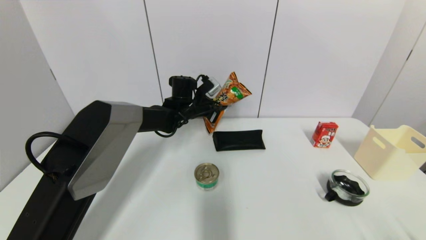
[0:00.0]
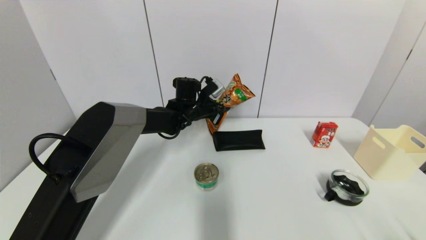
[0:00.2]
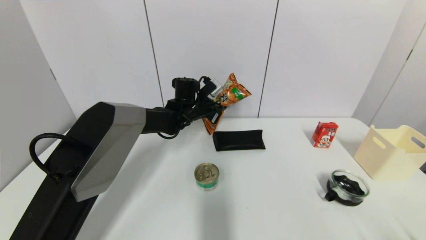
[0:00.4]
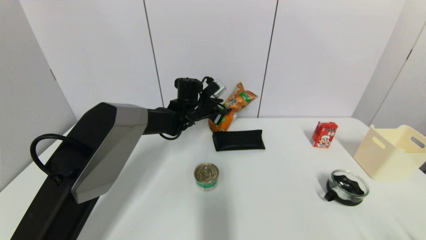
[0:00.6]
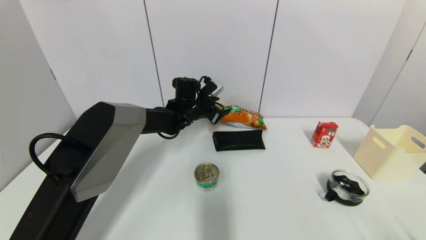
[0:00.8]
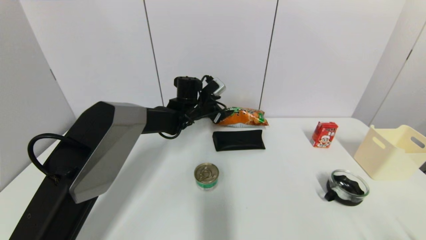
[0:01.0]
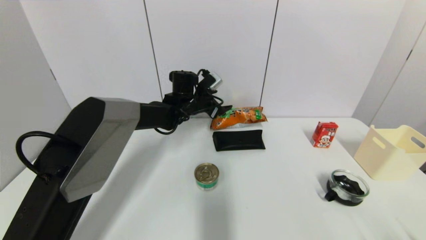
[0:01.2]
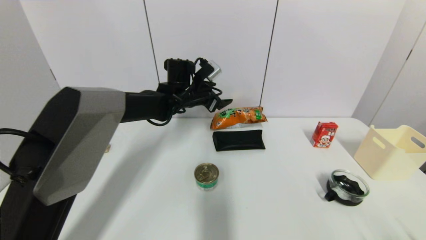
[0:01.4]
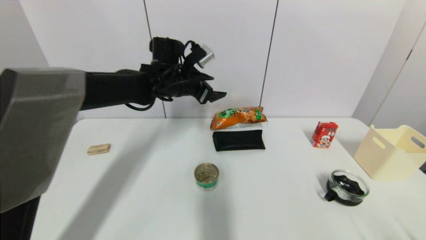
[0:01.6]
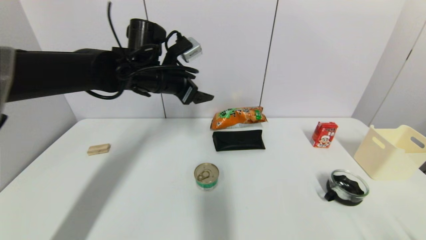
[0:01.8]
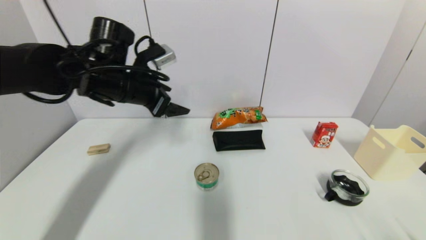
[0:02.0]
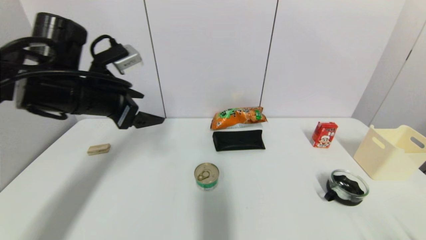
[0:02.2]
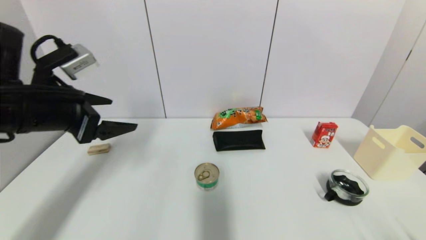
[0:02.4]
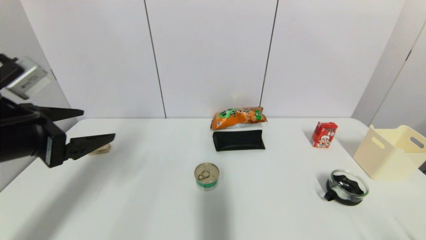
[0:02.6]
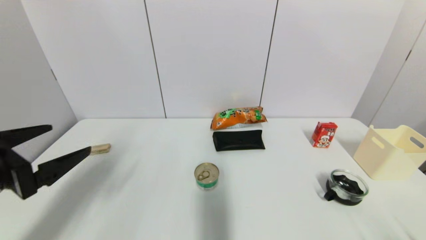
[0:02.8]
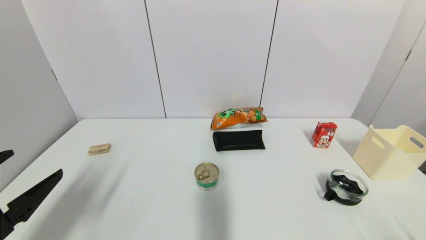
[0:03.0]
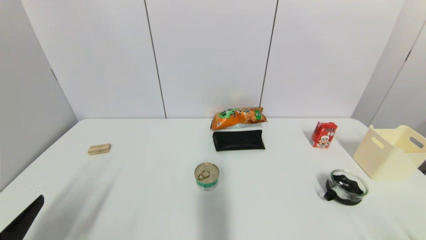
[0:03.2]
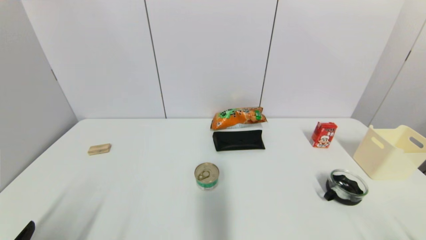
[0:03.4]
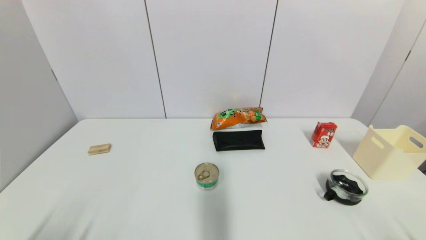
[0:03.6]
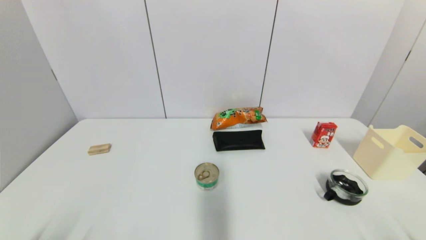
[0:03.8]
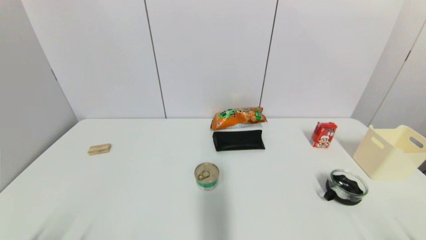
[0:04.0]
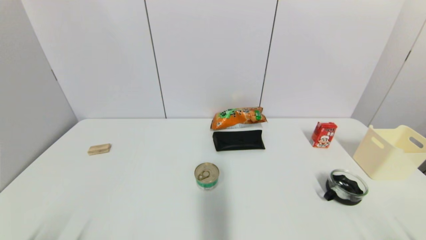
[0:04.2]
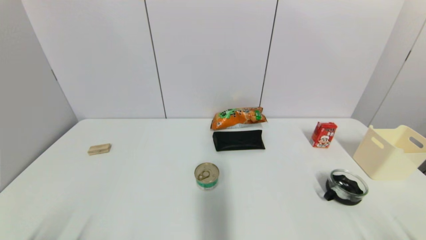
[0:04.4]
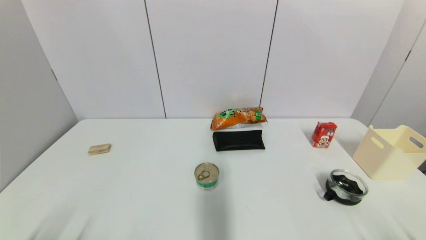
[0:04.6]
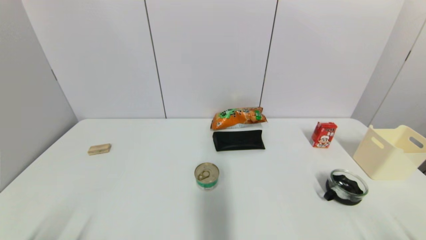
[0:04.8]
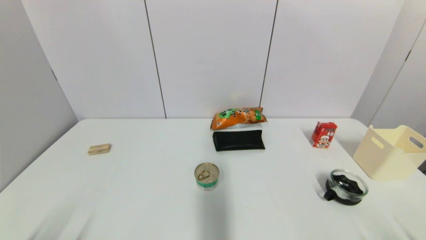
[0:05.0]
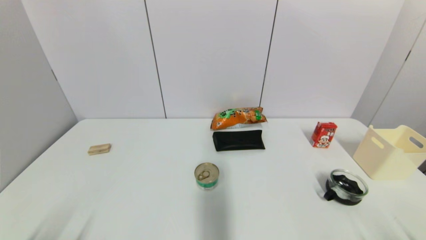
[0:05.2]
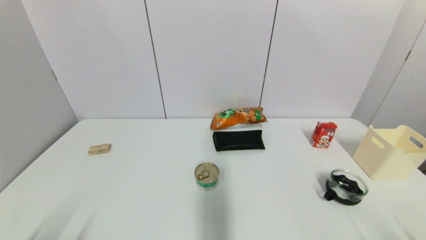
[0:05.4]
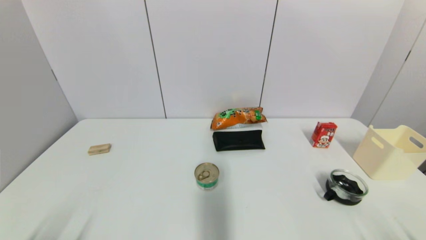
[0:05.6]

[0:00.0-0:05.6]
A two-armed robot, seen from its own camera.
0:00.0 to 0:01.4: The left gripper shifts some 5 cm upward, and opens its fingers.
0:01.4 to 0:02.8: The left gripper heads backward and to the left, covering roughly 40 cm.
0:02.8 to 0:04.2: The left gripper goes some 20 cm downward and backward.
0:04.2 to 0:05.6: Both grippers stay about where they are.
